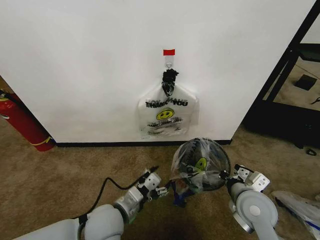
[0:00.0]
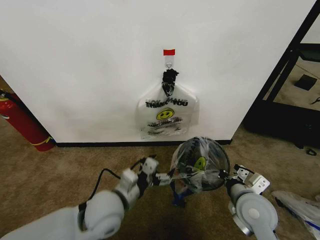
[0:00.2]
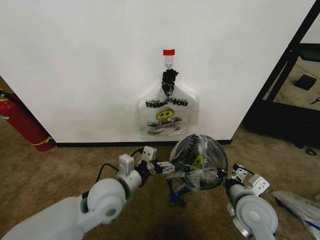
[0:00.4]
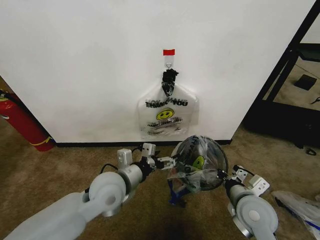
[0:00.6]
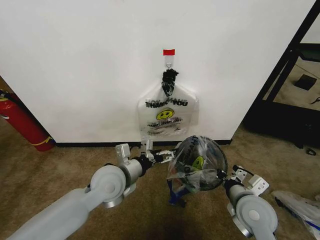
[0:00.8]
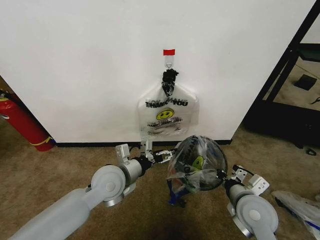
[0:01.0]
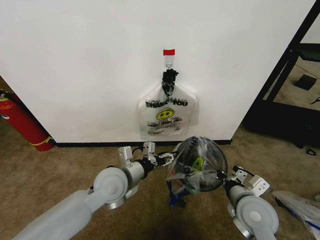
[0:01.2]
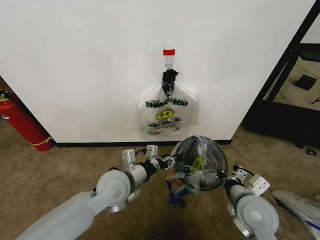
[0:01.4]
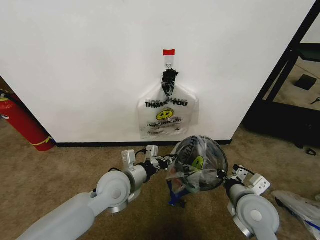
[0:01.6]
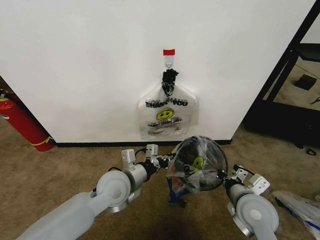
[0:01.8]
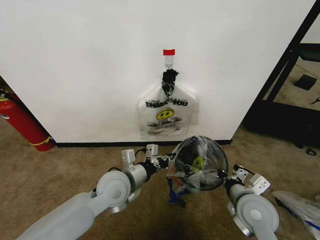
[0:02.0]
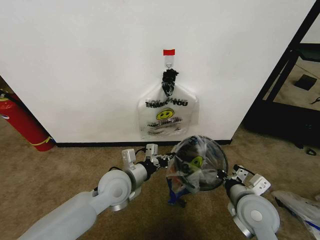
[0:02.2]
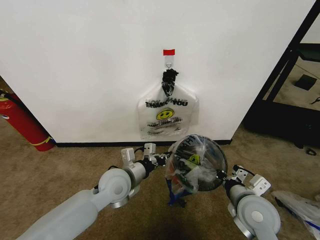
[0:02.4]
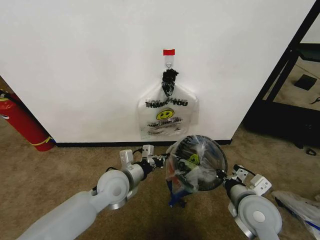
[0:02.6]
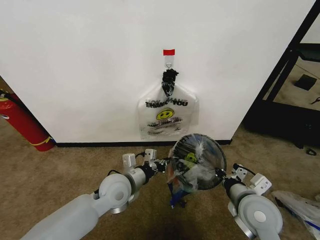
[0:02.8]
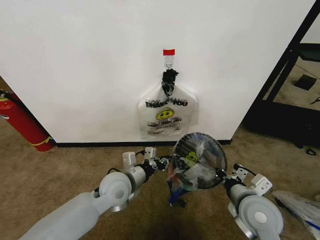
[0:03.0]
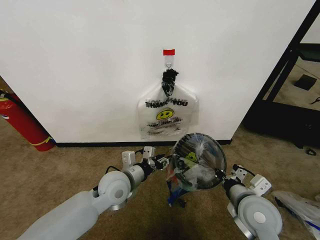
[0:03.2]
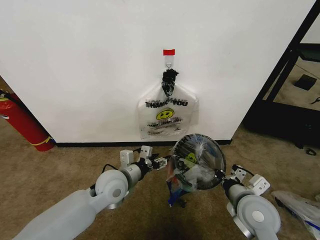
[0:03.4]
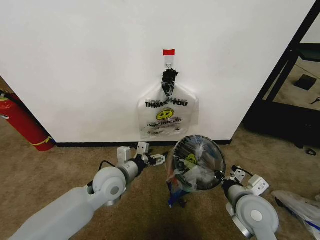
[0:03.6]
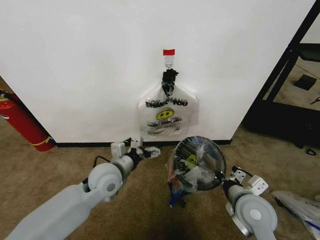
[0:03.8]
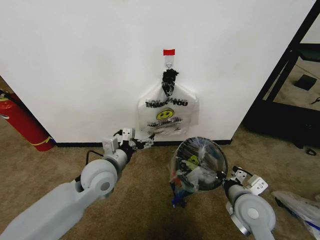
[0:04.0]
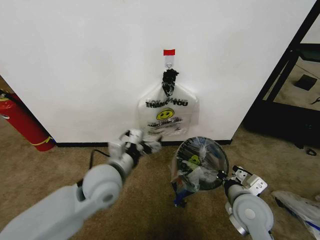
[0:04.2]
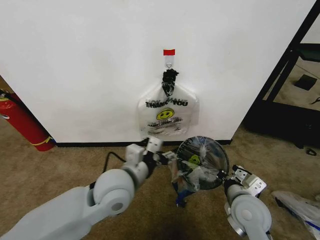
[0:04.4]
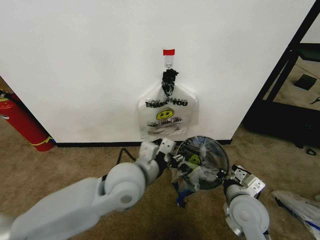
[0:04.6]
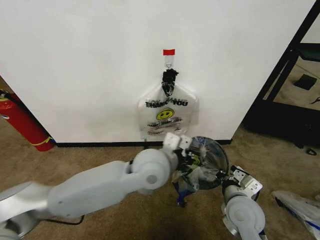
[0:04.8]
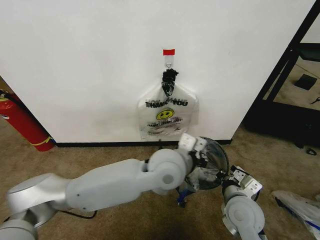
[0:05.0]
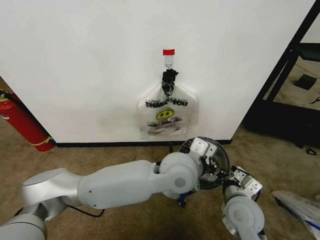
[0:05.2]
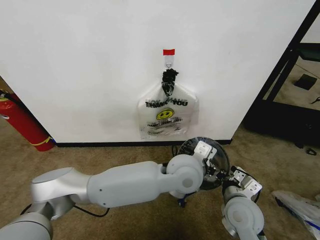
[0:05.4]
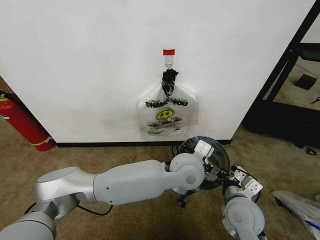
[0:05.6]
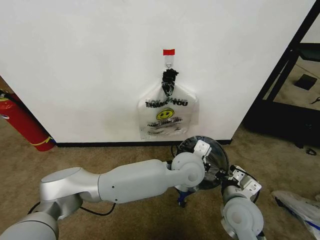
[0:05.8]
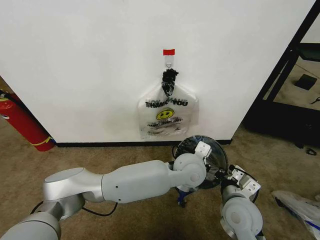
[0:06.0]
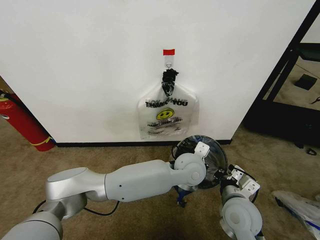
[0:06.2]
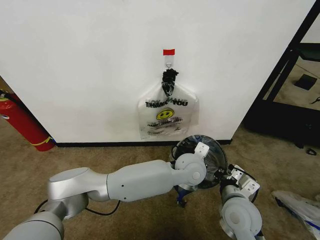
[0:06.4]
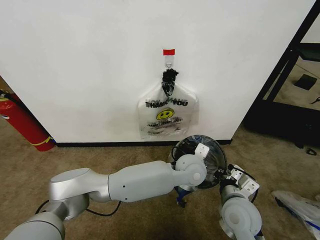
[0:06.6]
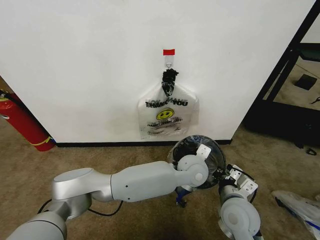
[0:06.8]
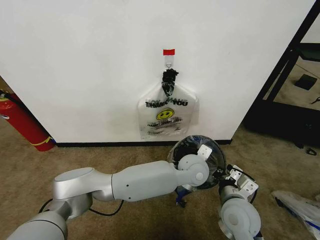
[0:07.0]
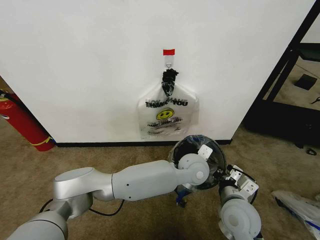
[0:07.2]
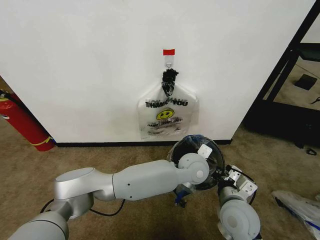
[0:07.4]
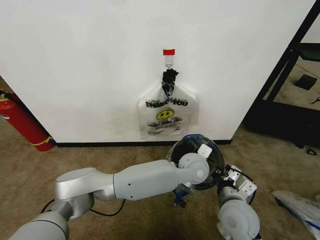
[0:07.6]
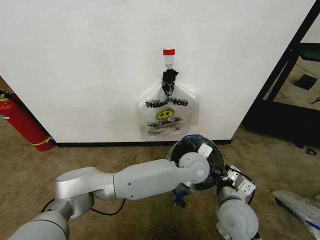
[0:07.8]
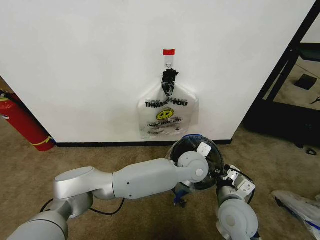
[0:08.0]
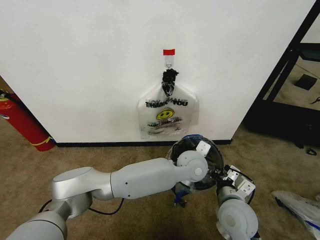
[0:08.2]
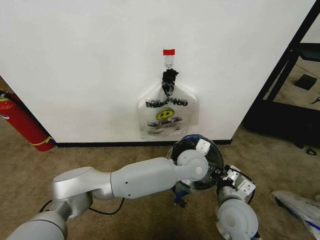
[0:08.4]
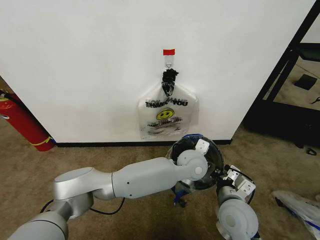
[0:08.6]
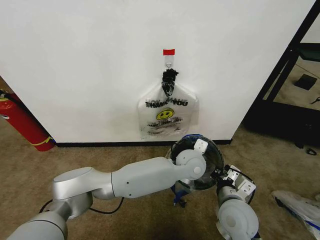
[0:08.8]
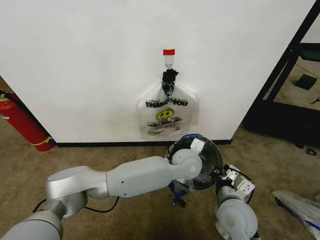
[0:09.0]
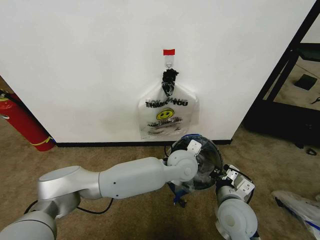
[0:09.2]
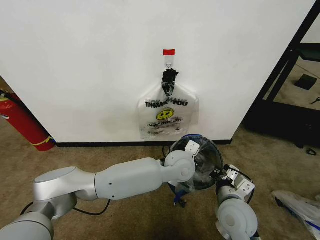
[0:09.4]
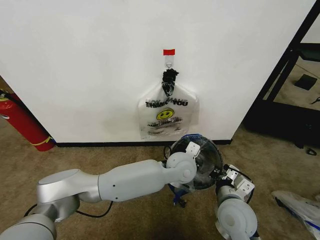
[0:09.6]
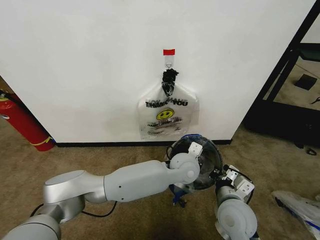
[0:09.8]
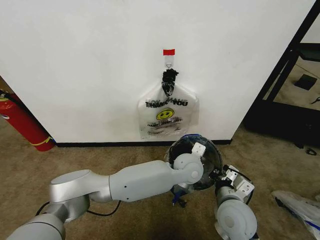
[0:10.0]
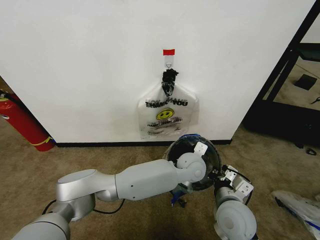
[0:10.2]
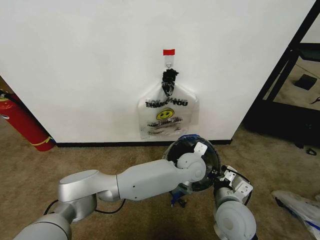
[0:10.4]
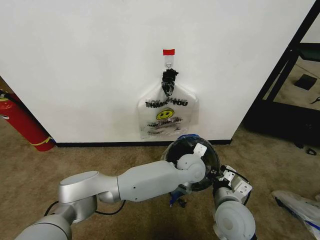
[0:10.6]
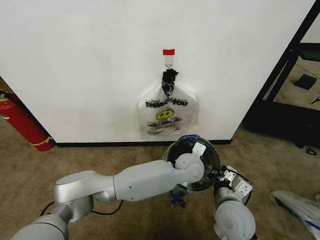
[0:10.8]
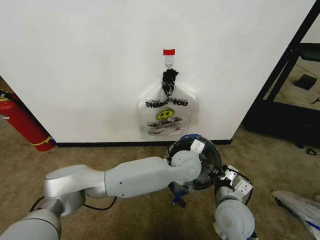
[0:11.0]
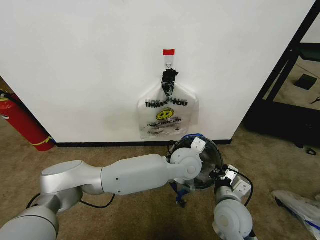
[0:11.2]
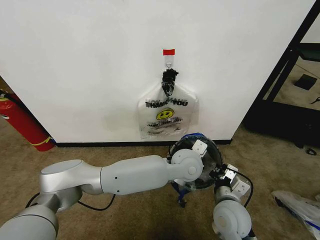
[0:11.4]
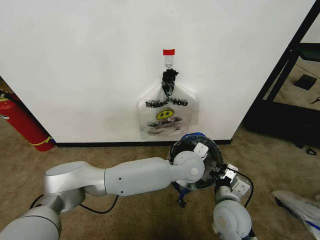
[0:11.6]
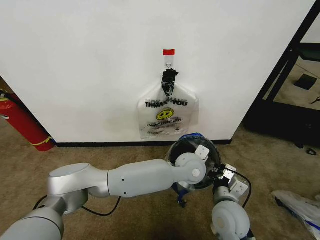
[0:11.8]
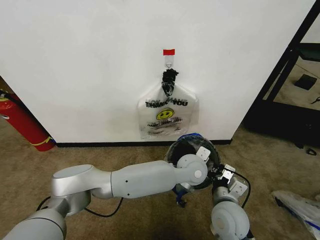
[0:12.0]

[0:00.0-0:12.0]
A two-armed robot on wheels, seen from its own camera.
Task of the whole recording: Pick up the garbage bag from the wall and place it over the trash bin.
0:00.0 to 0:01.6: The left gripper heads forward, covering roughly 10 cm, and closes its fingers.
0:01.6 to 0:03.0: The grippers stay close to where they were, moving slightly.
0:03.0 to 0:04.4: The left gripper goes roughly 10 cm upward, and opens up.
0:04.4 to 0:06.0: The left gripper travels to the right by some 20 cm, and closes its fingers.
0:06.0 to 0:07.6: The left gripper opens.
0:07.6 to 0:09.0: The left gripper closes its fingers.
0:09.0 to 0:10.4: The grippers move only a little.

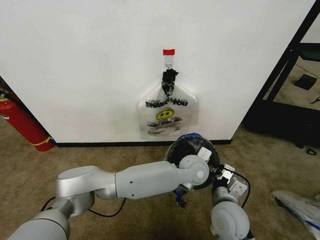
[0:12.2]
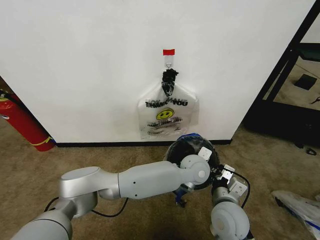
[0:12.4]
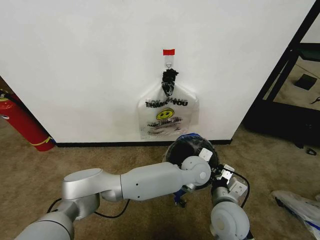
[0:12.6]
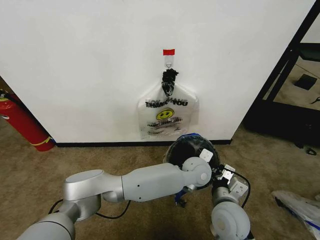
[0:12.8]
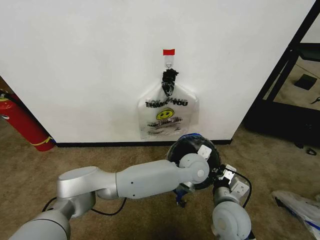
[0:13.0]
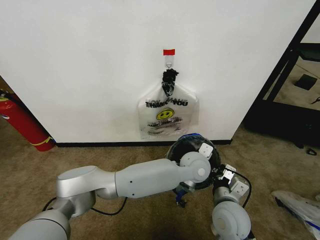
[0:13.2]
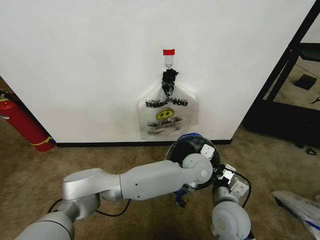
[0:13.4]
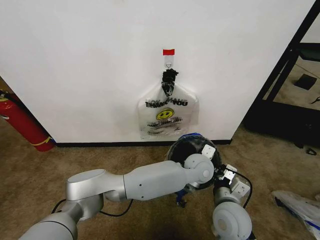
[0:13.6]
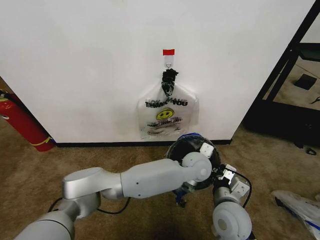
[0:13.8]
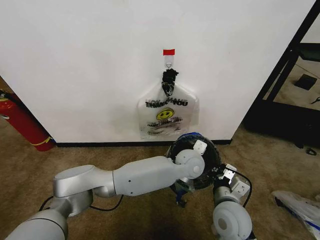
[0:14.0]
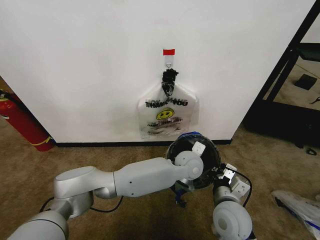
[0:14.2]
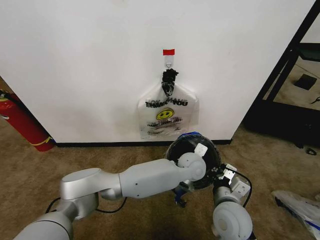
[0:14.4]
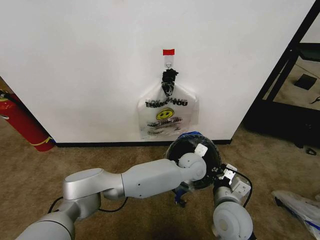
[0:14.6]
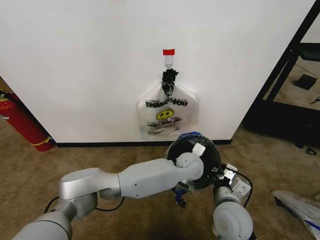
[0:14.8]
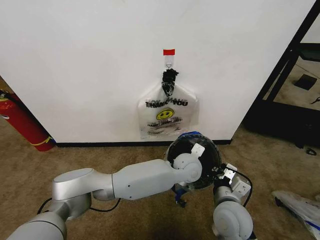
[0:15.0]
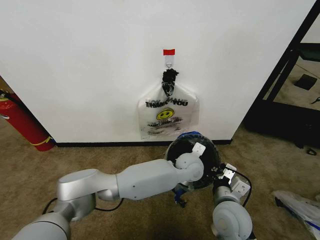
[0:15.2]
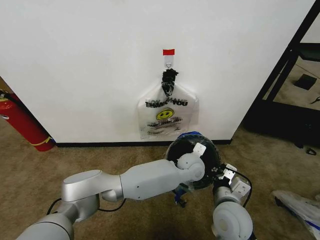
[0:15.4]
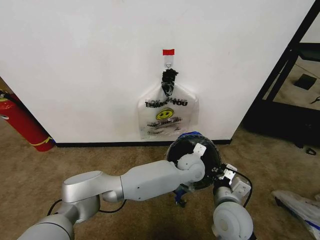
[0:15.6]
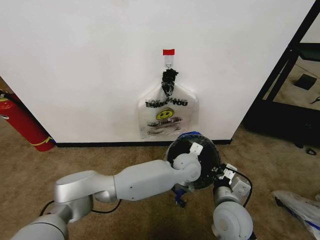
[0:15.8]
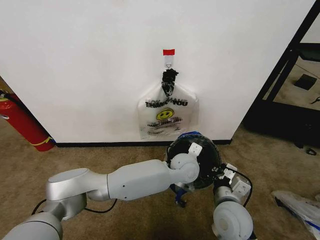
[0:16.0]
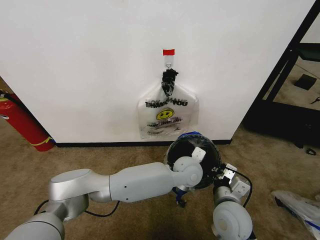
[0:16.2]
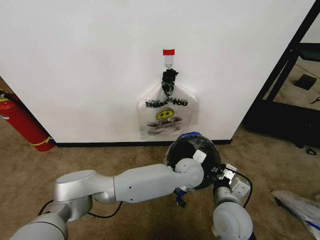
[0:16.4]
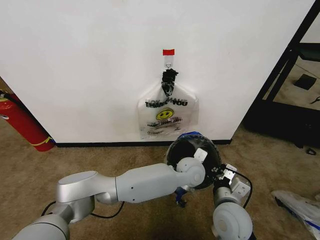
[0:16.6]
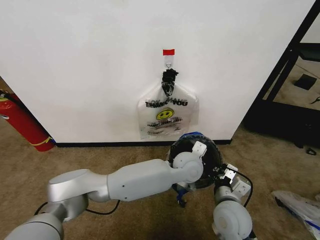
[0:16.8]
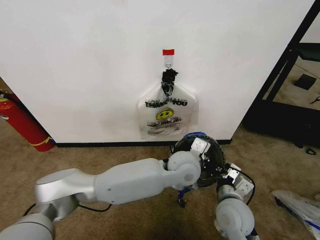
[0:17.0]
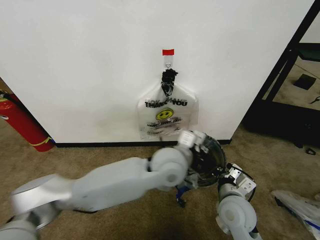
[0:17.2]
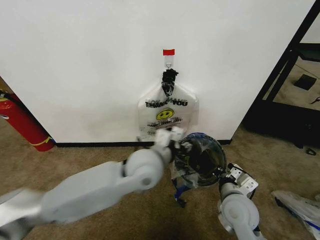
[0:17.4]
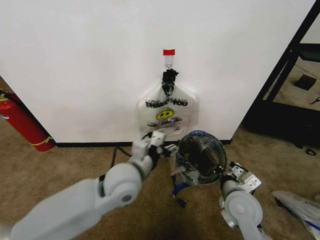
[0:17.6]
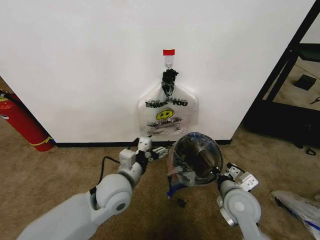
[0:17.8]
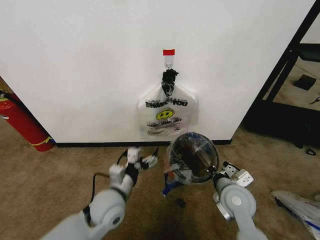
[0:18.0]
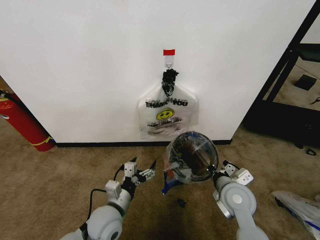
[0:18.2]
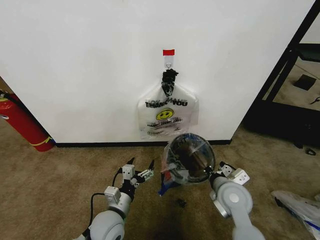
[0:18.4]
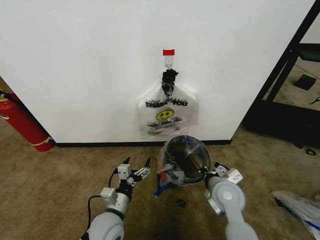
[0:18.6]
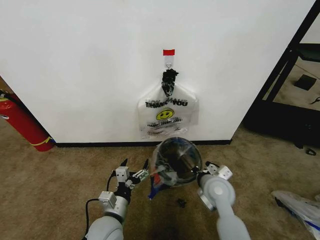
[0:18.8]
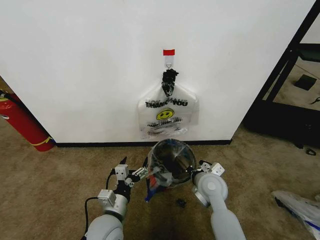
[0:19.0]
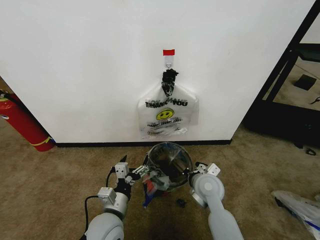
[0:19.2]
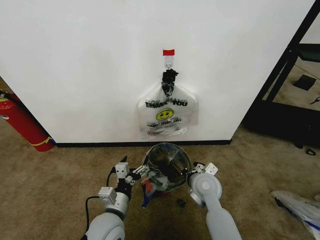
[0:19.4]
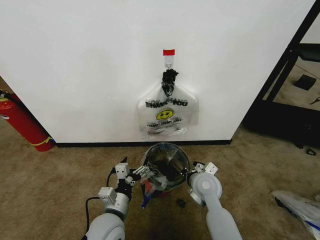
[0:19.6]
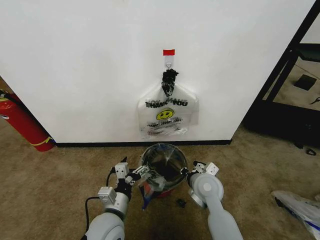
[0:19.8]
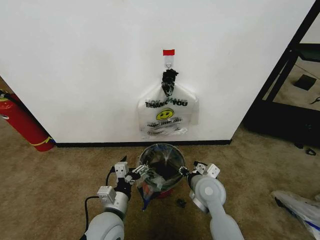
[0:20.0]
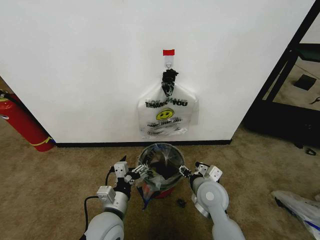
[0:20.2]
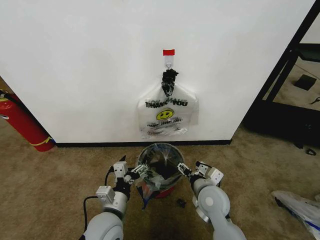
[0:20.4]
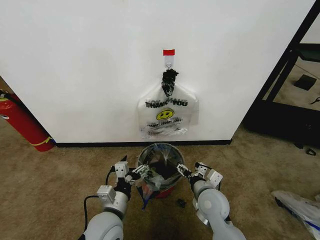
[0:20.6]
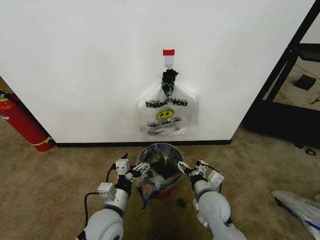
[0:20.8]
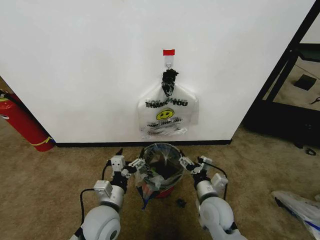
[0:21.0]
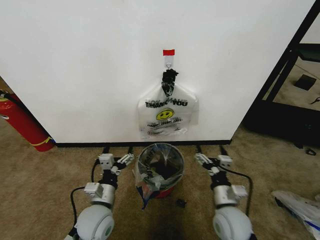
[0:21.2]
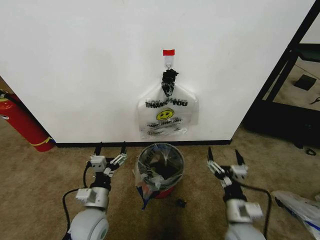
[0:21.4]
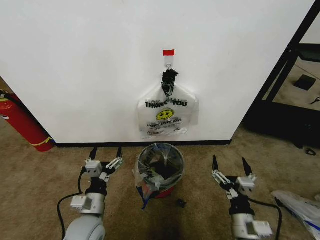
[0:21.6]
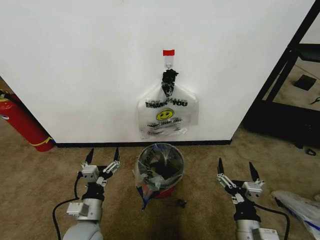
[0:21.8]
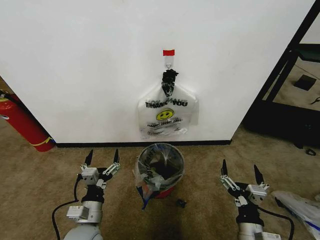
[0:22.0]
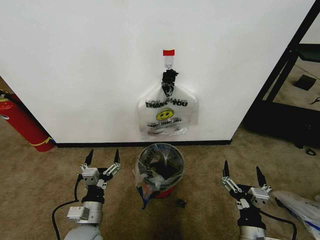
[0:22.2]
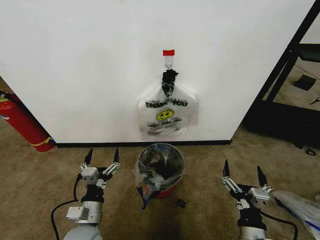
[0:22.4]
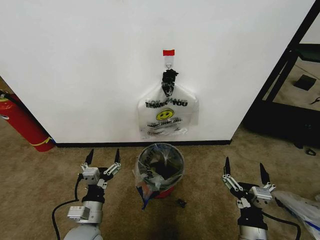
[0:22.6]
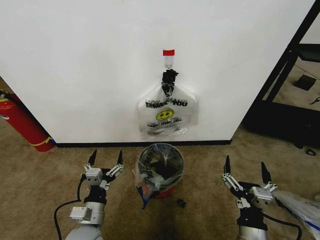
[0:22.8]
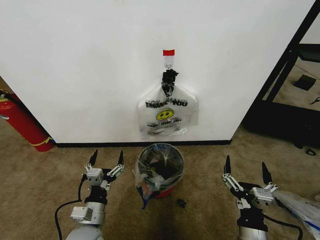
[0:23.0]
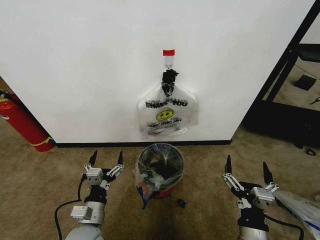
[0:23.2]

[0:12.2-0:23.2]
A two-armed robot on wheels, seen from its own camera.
Task of the whole recording: Pick up the garbage bag from the wall and place it over the trash bin.
0:12.2 to 0:15.4: The grippers make only small movements.
0:15.4 to 0:17.0: The left gripper is displaced upward and backward by some 10 cm.
0:17.0 to 0:18.4: The left gripper travels to the left, downward and backward by some 30 cm, and opens up.
0:18.4 to 0:20.0: The right gripper shifts approximately 5 cm to the left, and opens its fingers.
0:20.0 to 0:21.6: The right gripper travels backward and to the right by about 20 cm, and opens its fingers, while the left gripper shifts approximately 5 cm to the left.
0:21.6 to 0:23.2: The grippers make only small movements.
